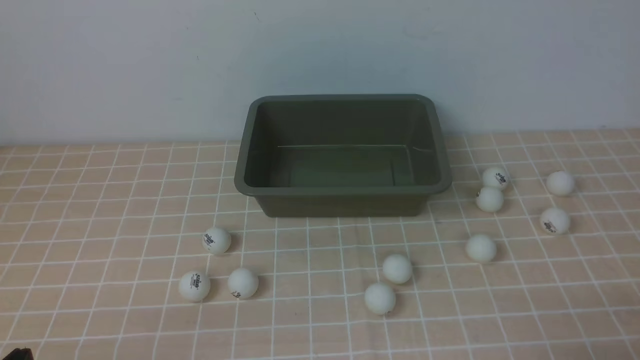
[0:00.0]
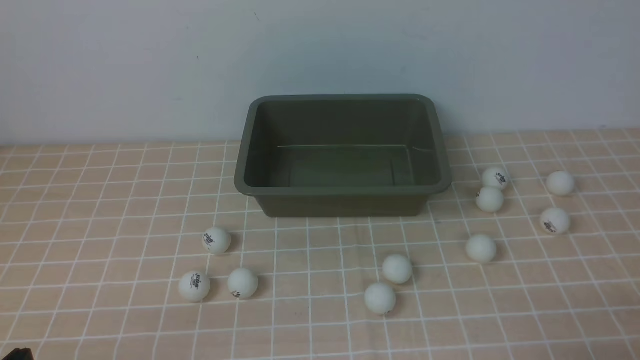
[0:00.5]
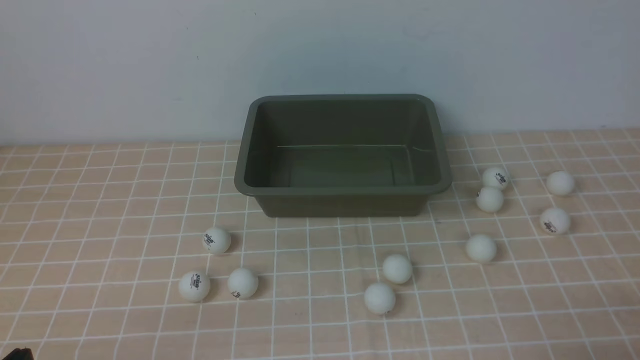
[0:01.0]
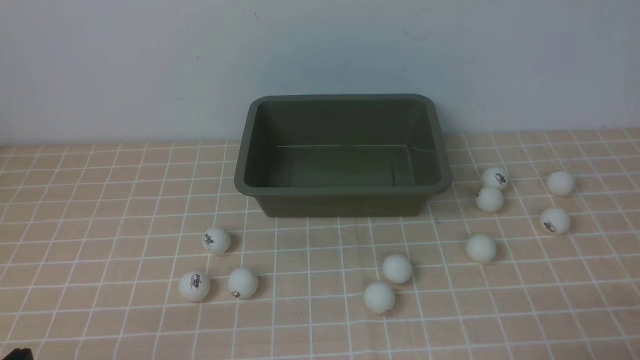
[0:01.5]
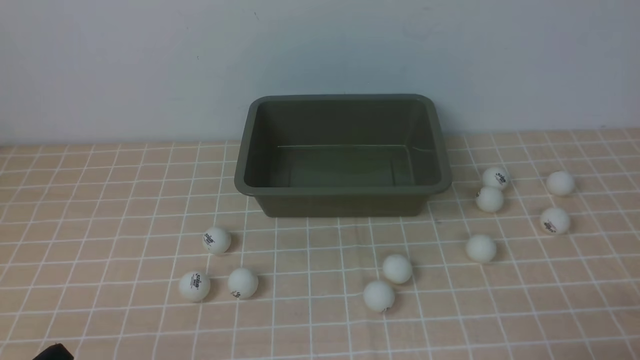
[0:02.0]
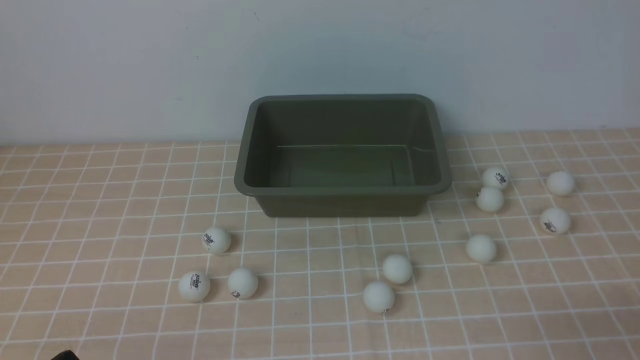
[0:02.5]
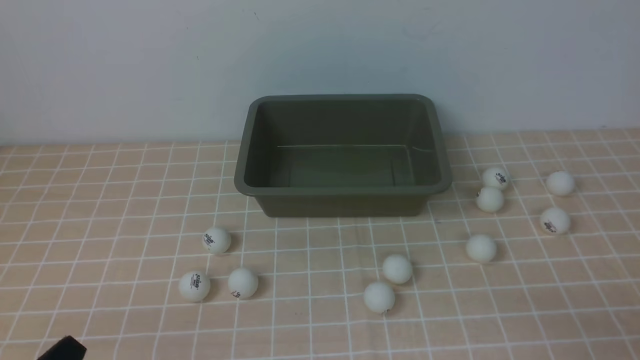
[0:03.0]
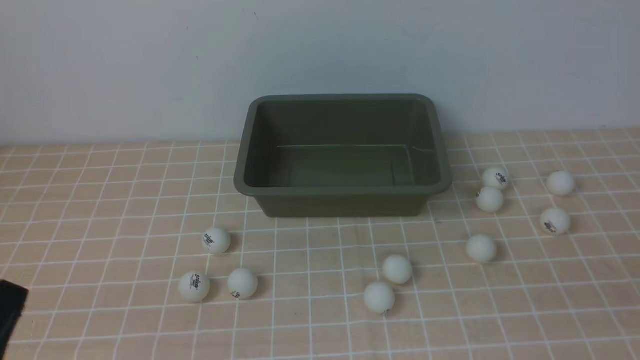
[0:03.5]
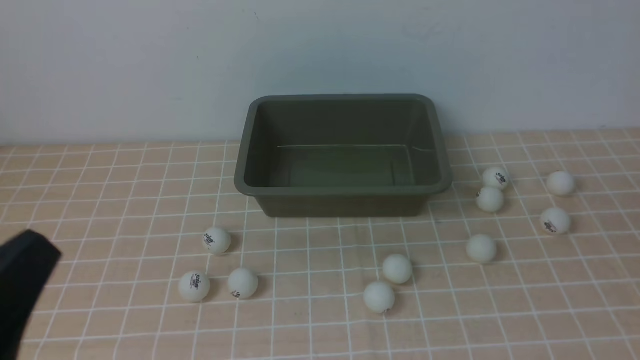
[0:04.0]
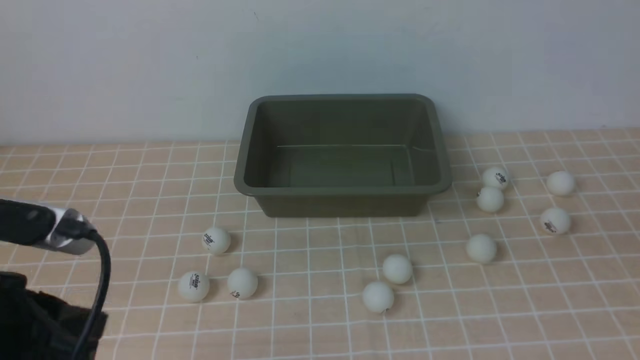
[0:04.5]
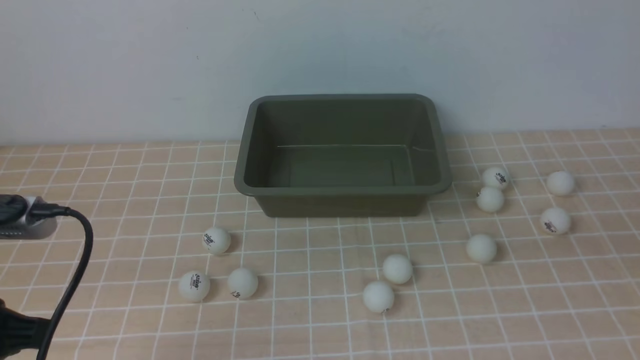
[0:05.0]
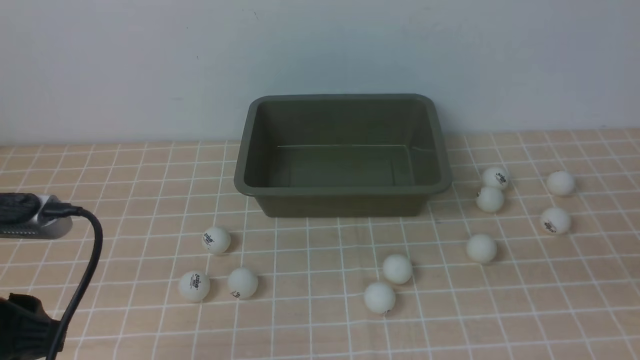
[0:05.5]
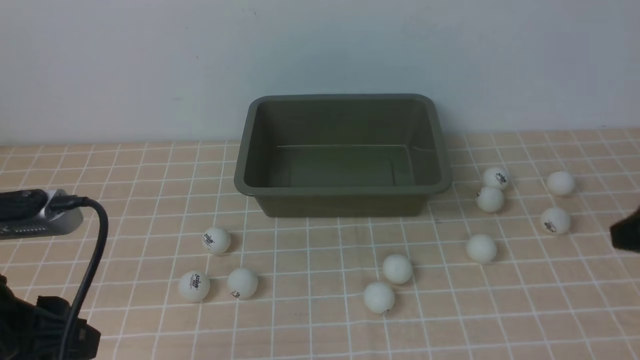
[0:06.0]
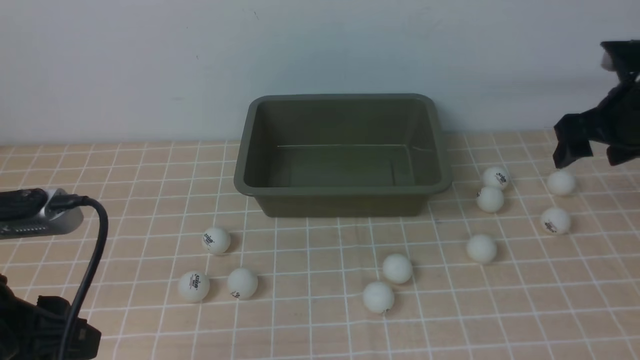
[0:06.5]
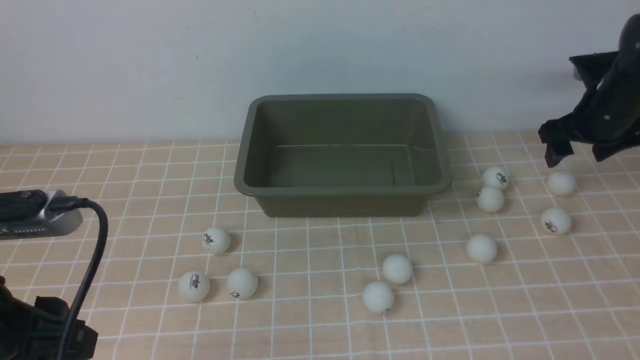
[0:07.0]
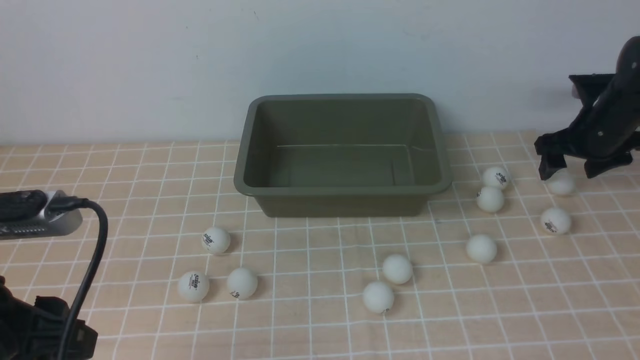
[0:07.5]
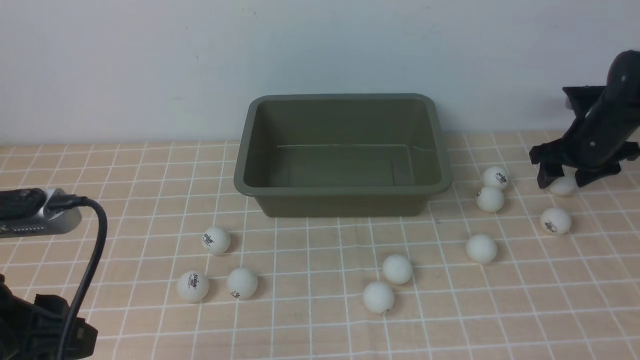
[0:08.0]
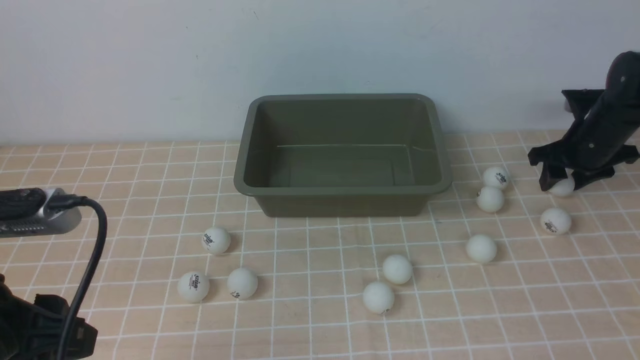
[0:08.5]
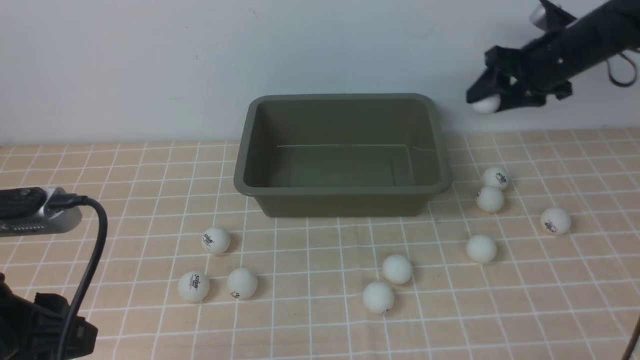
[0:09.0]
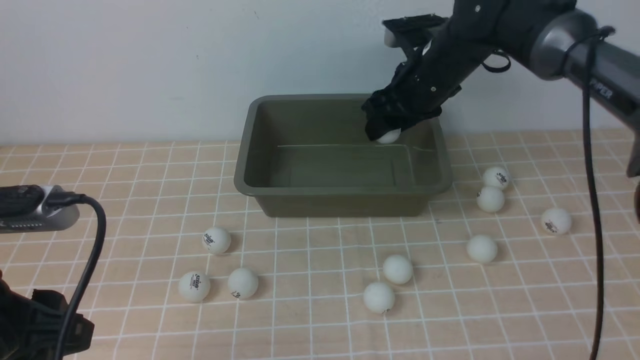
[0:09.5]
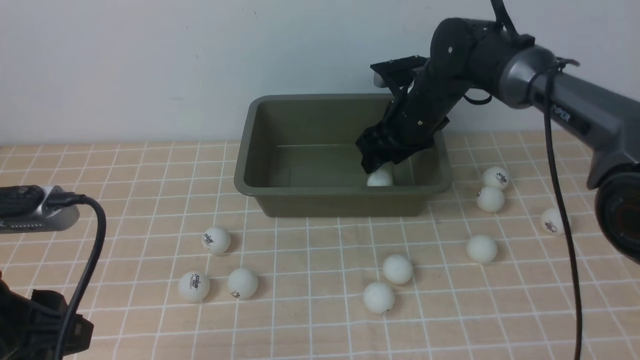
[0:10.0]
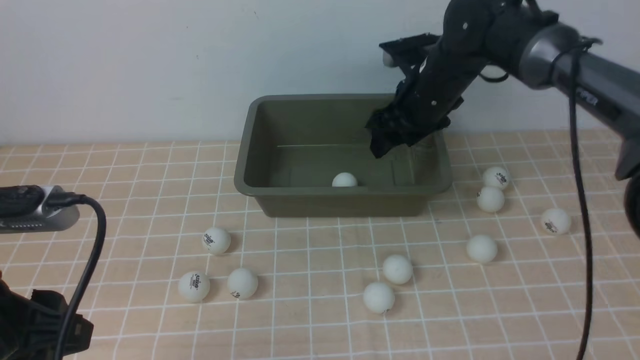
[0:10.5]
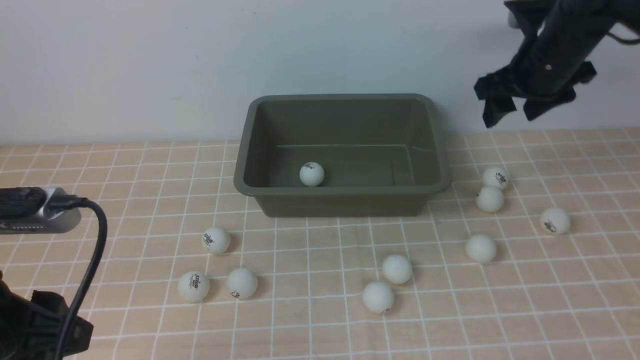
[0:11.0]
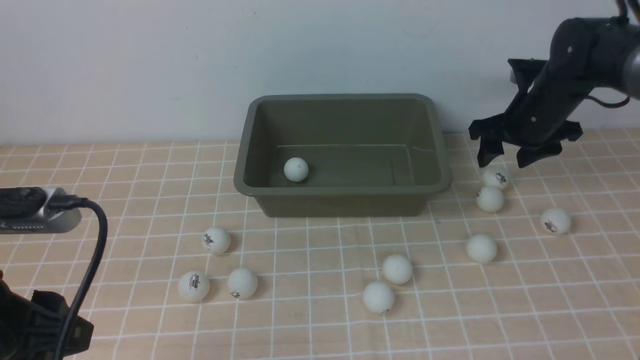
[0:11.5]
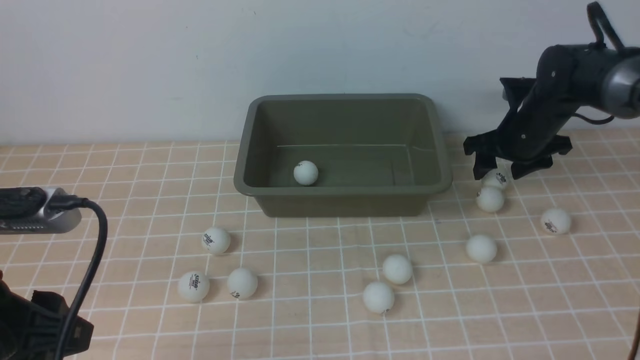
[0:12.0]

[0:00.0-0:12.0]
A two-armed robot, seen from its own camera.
Step, 0:00.0 to 0:09.0: use the right arm to clamp the table tennis ball closest to it.
Step, 0:09.5 to 0:10.0: use the right arm to put the table tennis ball into the box.
0:02.0 to 0:04.0: The left gripper goes roughly 15 cm upward.
0:04.0 to 0:06.0: The left gripper goes roughly 10 cm forward, and opens its fingers.
0:06.0 to 0:08.0: The right gripper moves forward and downward, some 30 cm.
0:08.0 to 0:10.0: The right gripper goes approximately 25 cm to the left.
0:10.0 to 0:12.0: The right gripper goes roughly 15 cm to the right.

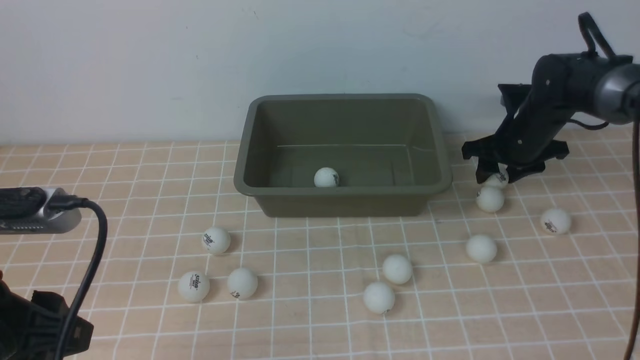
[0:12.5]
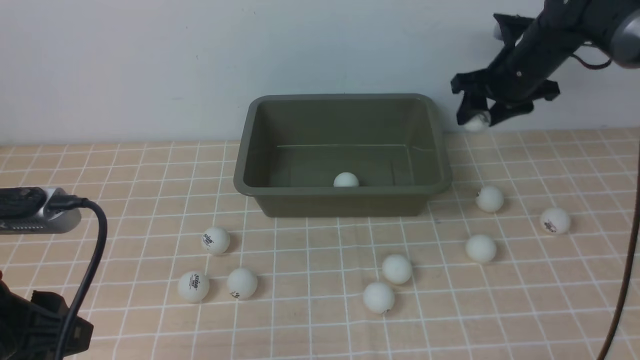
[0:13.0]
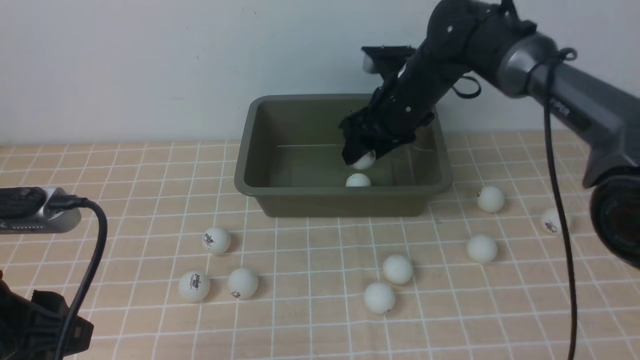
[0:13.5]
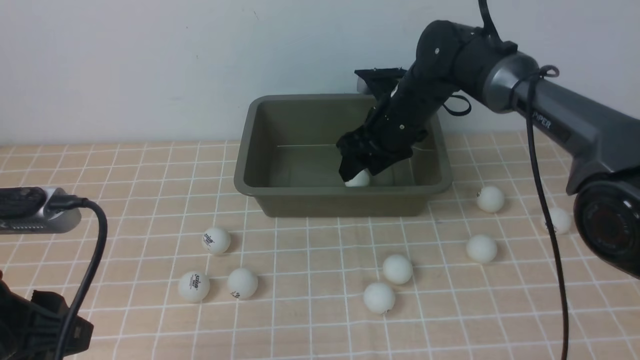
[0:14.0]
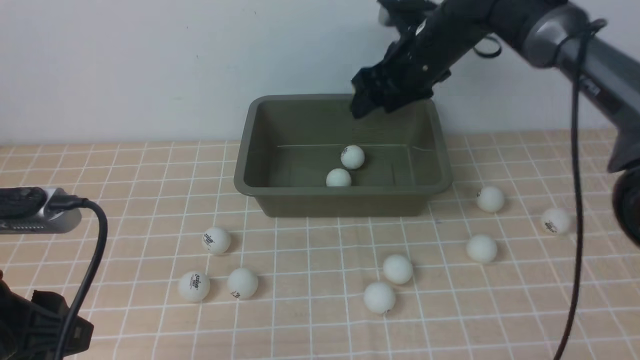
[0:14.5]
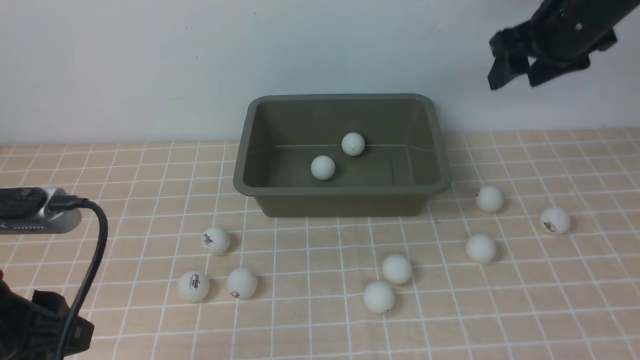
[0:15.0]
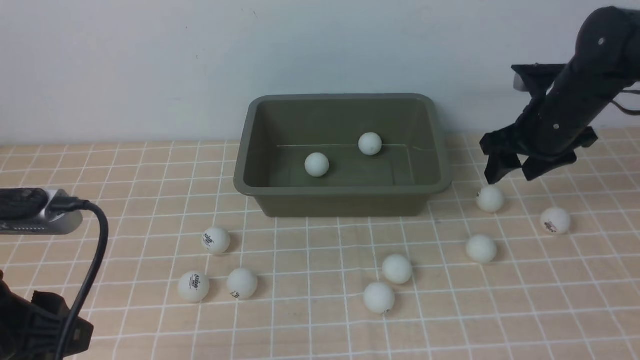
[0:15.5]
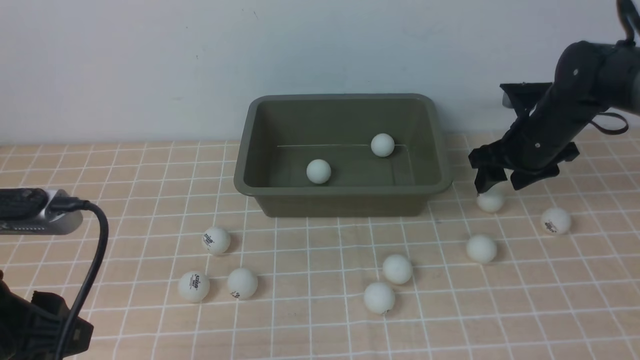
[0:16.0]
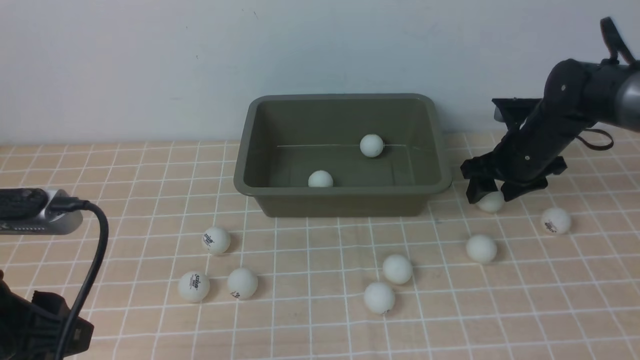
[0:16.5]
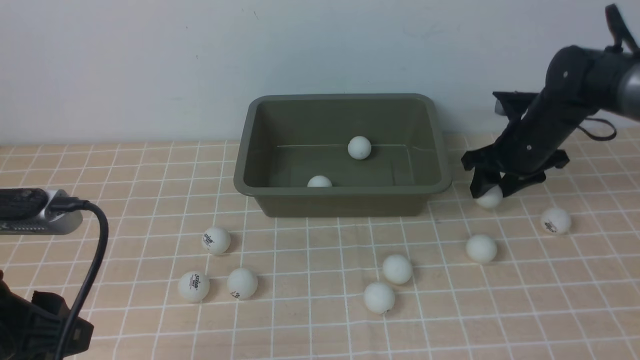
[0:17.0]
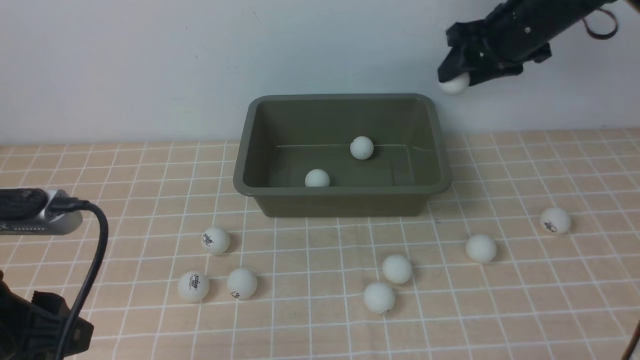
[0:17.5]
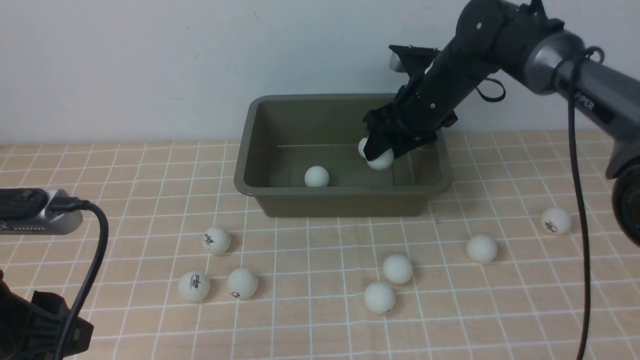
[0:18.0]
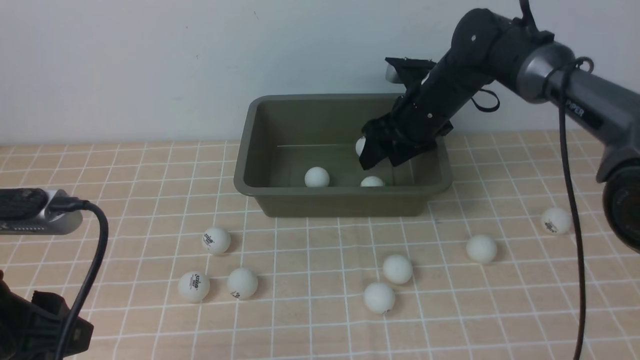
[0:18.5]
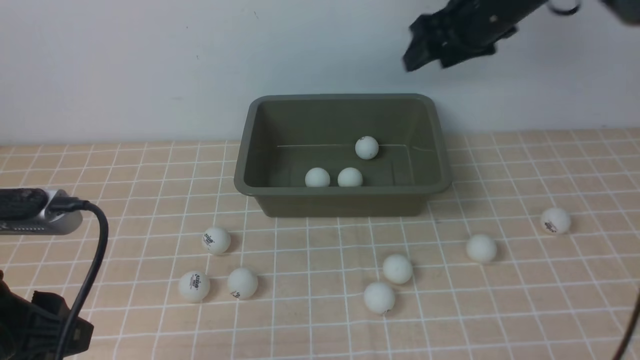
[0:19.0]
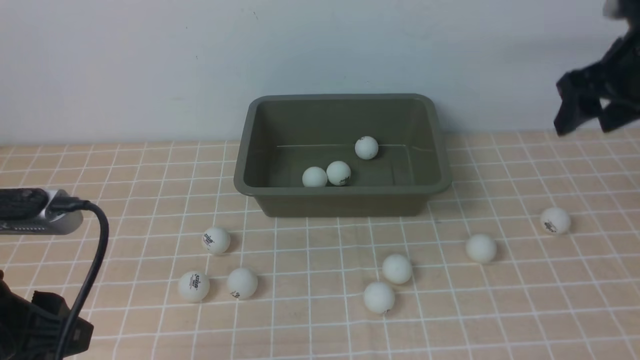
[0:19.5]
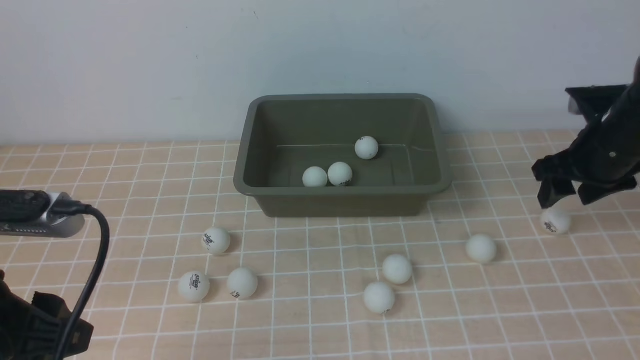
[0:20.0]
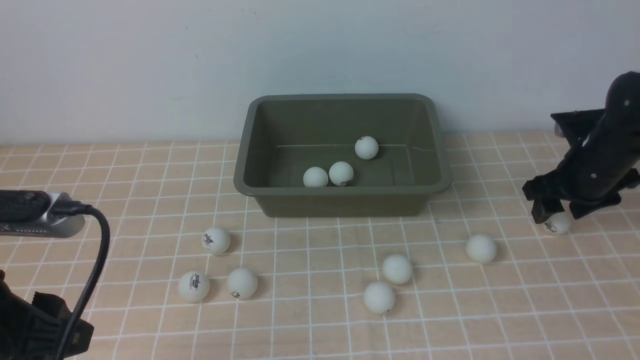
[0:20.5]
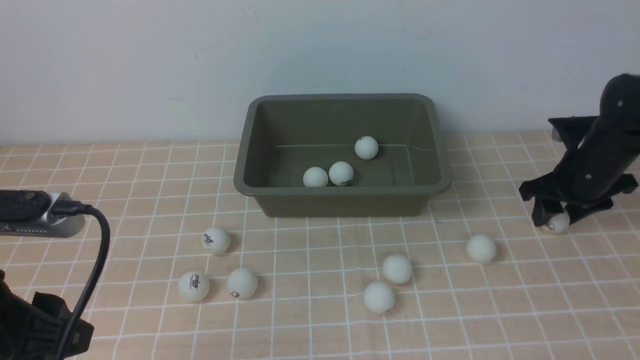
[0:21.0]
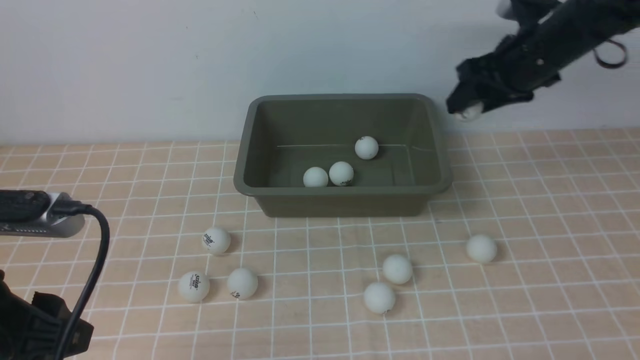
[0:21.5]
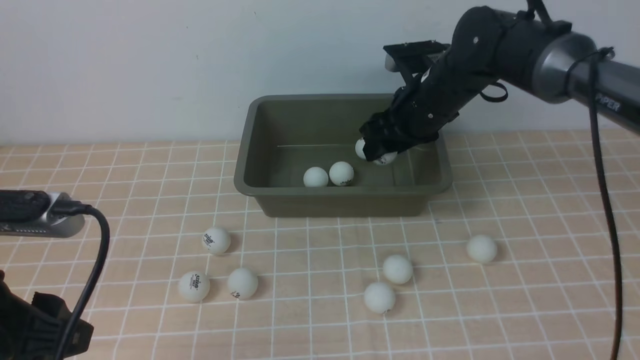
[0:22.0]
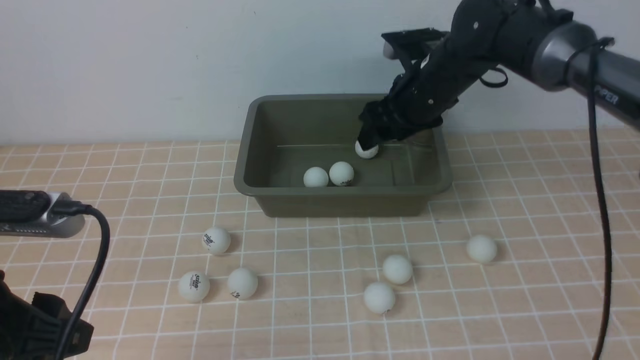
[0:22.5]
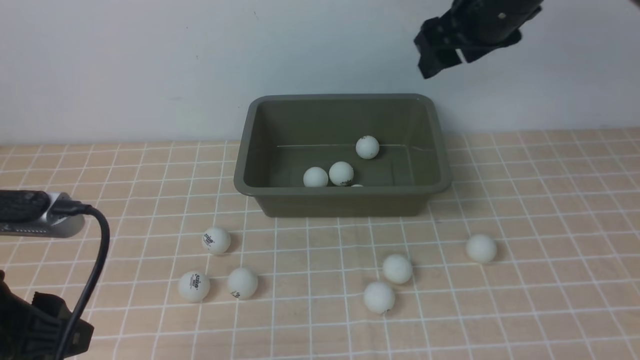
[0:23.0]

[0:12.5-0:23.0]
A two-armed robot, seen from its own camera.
Step, 0:13.5 to 0:14.0: use the right arm to put the table tennis ball into the box.
Step, 0:14.5 to 0:17.0: use the right arm to clamp the table tennis ball closest to it.
Step, 0:17.5 to 0:18.5: use the right arm to put the table tennis ball into the box.
Step, 0:19.0 to 0:21.0: use the right arm to clamp the table tennis ball closest to it.
Step, 0:21.5 to 0:22.5: use the right arm to put the table tennis ball into the box.
0:12.5 to 0:14.5: The right gripper is displaced upward and to the left by some 20 cm.
0:14.5 to 0:16.5: The right gripper moves downward and to the right, some 20 cm.
0:16.5 to 0:19.0: The right gripper goes up and down, about 15 cm each way, reversing 2 times.
0:19.0 to 0:21.0: The right gripper goes some 20 cm downward and to the right.
0:21.0 to 0:23.0: The right gripper shifts roughly 25 cm upward and to the left.
